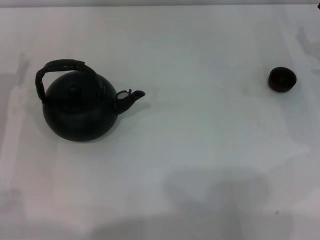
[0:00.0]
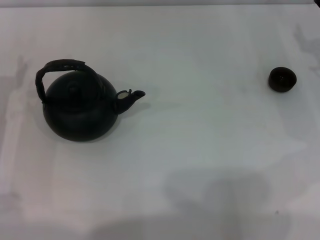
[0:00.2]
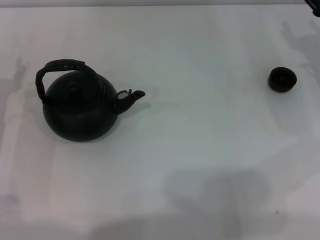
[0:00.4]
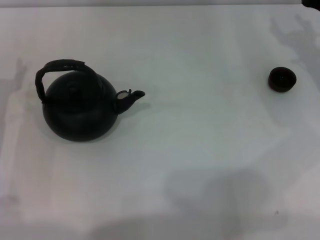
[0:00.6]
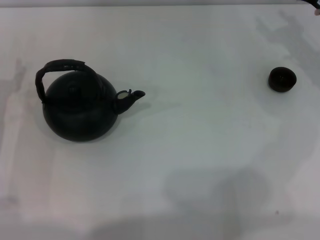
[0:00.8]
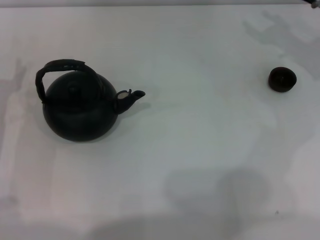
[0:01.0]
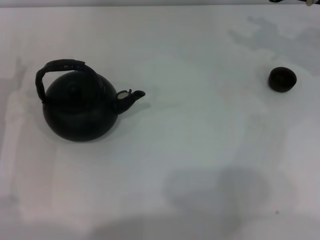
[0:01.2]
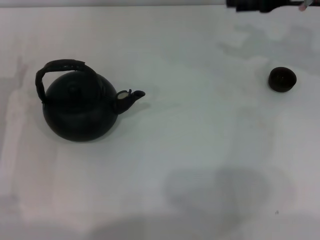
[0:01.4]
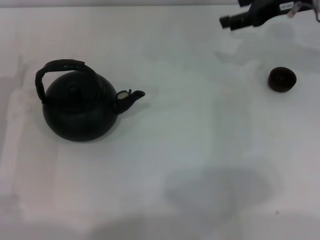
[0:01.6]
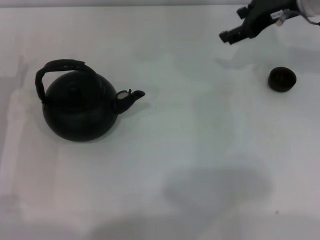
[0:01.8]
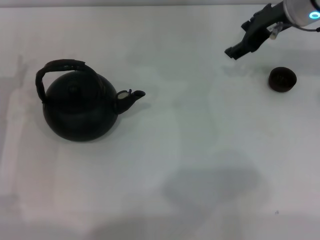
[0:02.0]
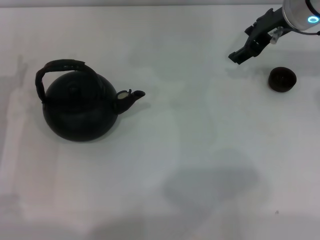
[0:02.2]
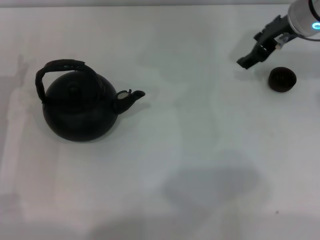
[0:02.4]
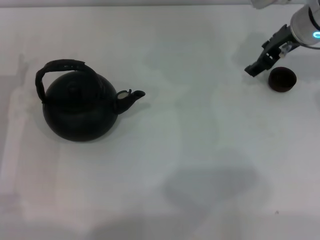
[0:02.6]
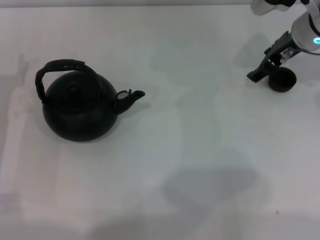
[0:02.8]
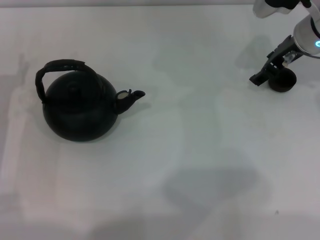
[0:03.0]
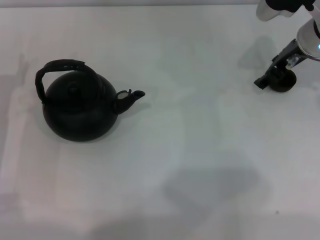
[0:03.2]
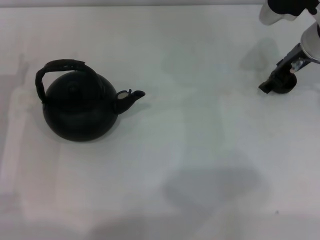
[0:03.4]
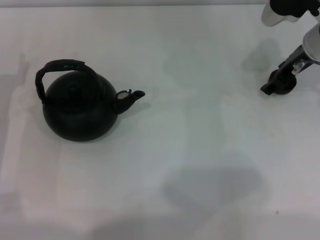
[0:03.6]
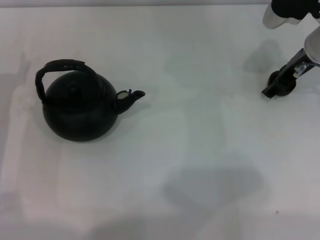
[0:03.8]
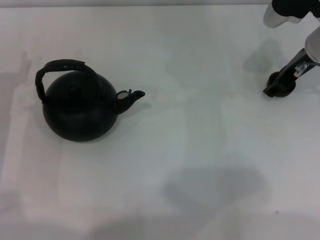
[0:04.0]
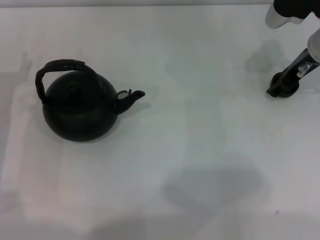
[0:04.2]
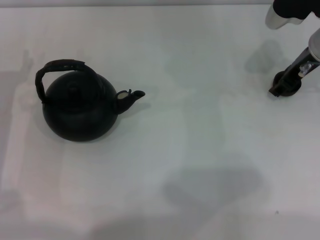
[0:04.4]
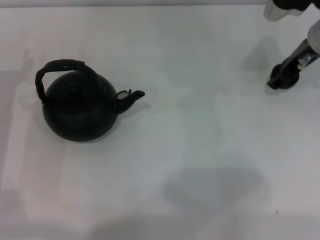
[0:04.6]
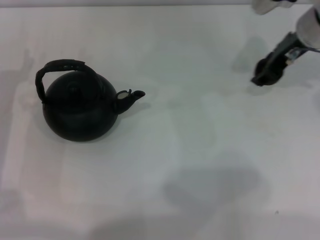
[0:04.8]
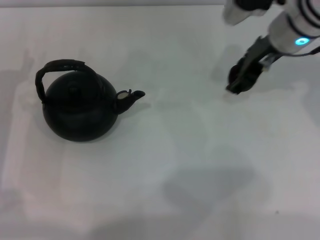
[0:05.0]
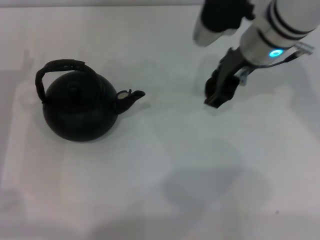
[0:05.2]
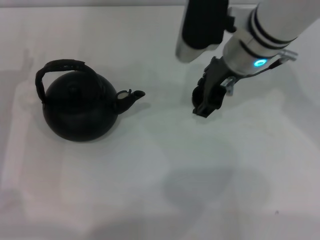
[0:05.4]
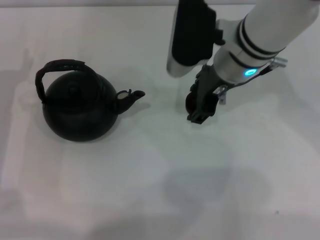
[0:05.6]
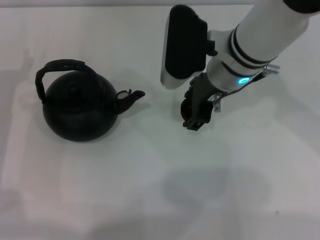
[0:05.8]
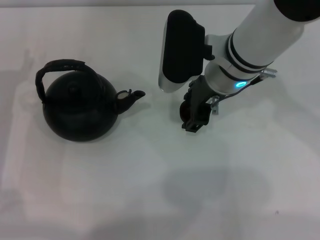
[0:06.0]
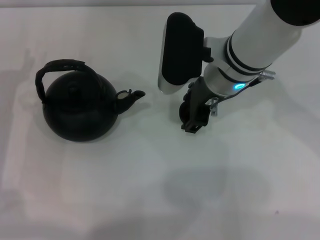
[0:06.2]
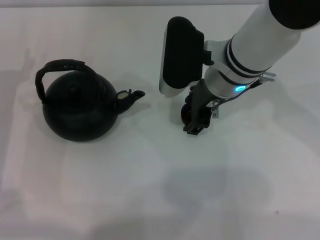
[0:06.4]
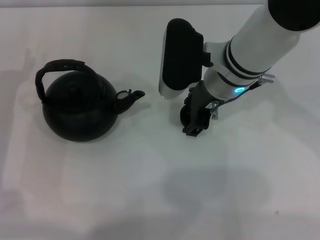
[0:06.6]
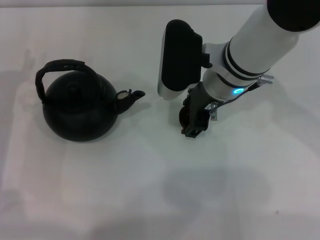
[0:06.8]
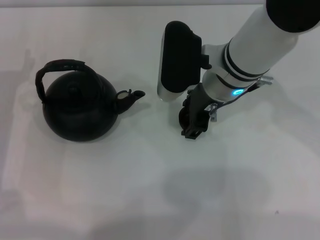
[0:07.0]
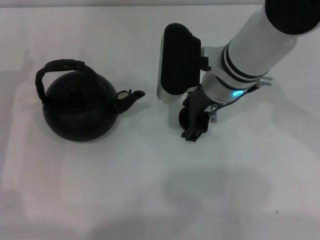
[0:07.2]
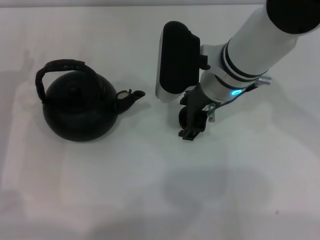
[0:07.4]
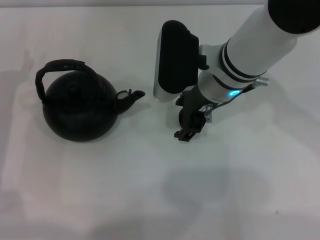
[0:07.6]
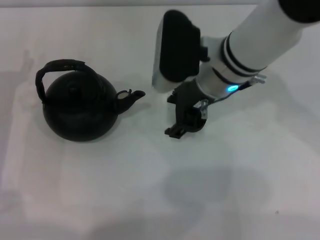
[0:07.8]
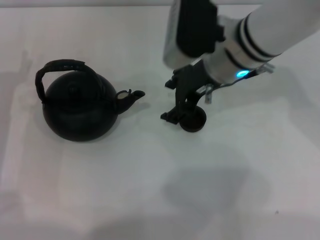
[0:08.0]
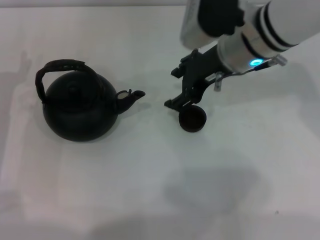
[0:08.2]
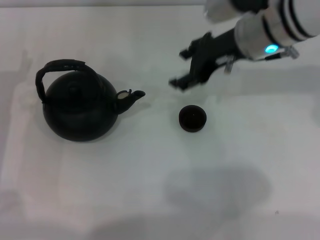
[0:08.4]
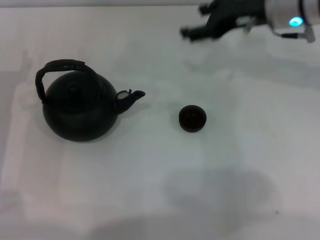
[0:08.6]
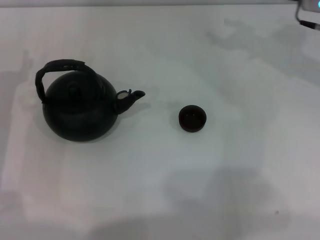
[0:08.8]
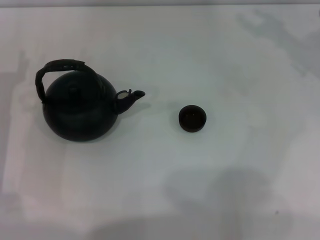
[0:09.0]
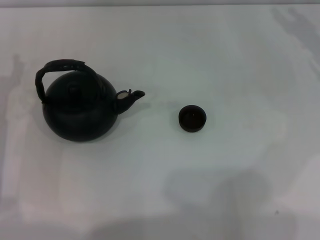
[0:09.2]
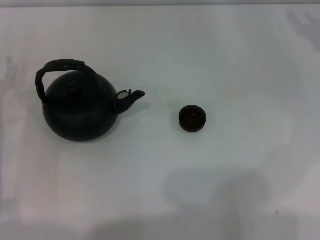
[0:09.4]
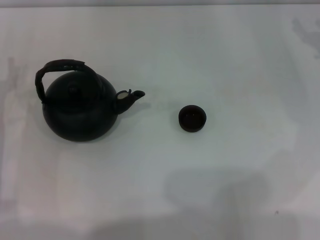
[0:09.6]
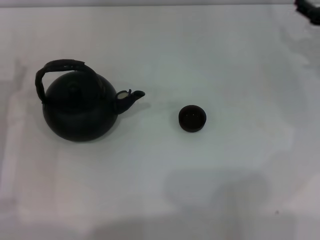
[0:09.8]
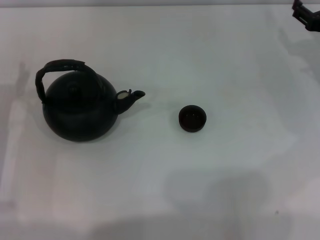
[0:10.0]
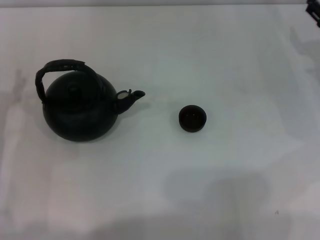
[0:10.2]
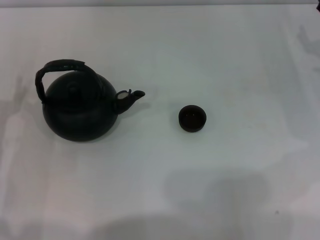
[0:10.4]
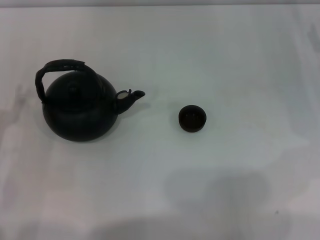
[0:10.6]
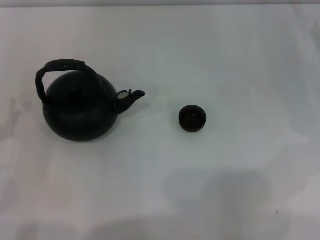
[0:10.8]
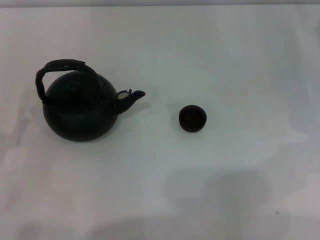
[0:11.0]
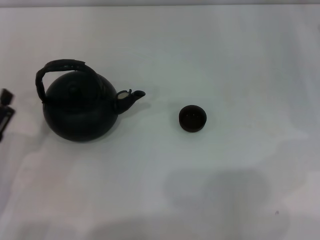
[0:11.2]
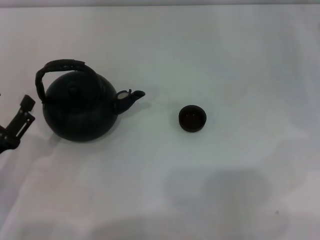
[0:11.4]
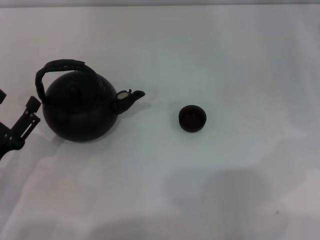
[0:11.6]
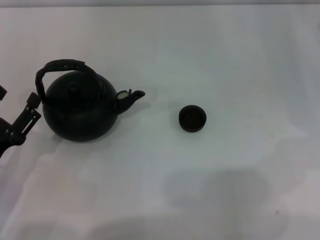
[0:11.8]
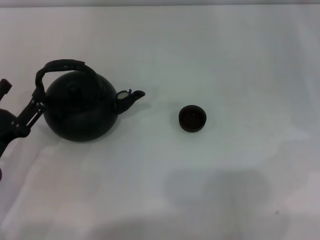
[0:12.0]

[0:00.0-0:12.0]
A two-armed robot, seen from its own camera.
Task of the whole recording: Grasp the handle of the teapot with one hand and pour tea into the teacup.
Step, 0:00.0 to 0:05.0: Pick up the teacup with the right gripper.
Step, 0:05.2 to 0:07.8: Place the teacup in the center of view with the right gripper.
0:00.0 to 0:01.6: The right gripper is displaced upward, to the left and forward by roughly 15 cm.
0:01.6 to 0:03.0: The right gripper moves about 5 cm.
0:03.0 to 0:04.4: The grippers move only a little.
0:04.4 to 0:06.0: The right gripper is displaced to the left by about 15 cm.
0:06.0 to 0:07.6: The two grippers keep their place.
0:07.6 to 0:09.0: The right gripper travels to the right by roughly 20 cm.

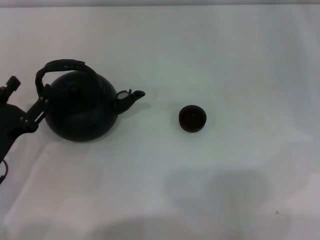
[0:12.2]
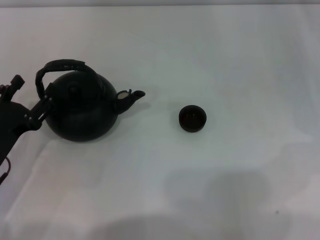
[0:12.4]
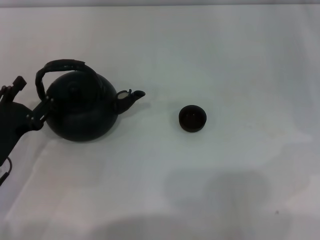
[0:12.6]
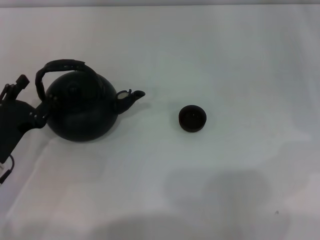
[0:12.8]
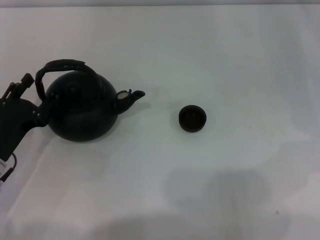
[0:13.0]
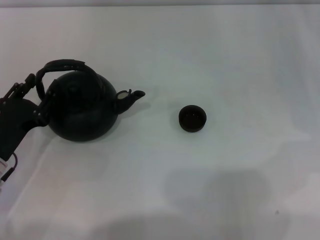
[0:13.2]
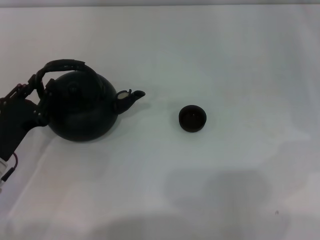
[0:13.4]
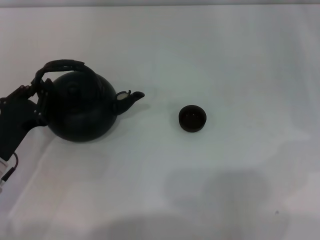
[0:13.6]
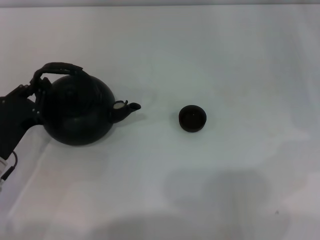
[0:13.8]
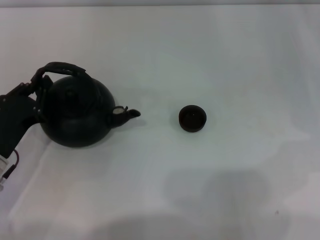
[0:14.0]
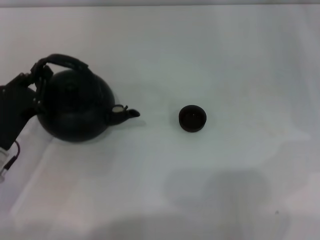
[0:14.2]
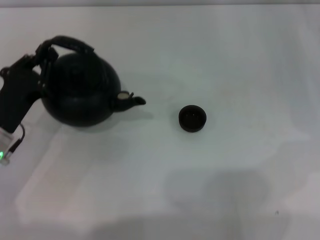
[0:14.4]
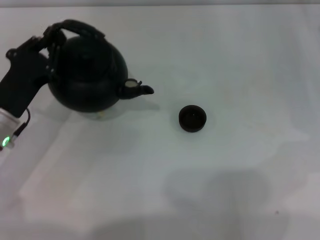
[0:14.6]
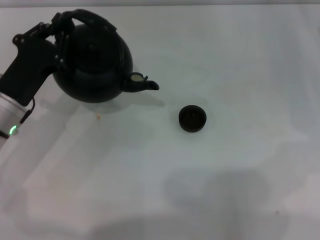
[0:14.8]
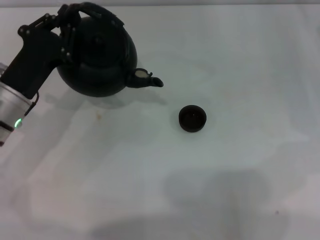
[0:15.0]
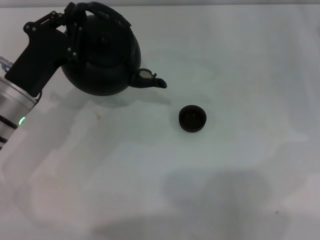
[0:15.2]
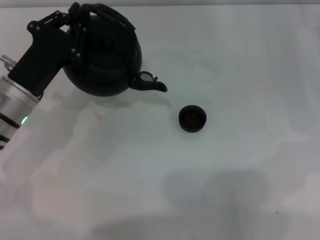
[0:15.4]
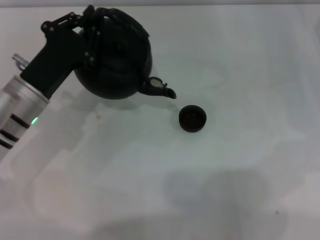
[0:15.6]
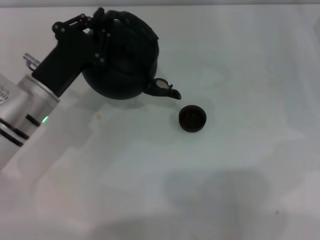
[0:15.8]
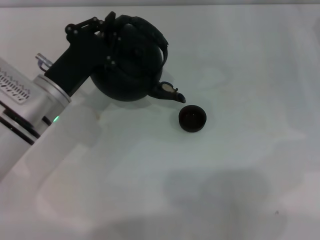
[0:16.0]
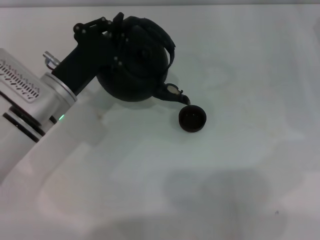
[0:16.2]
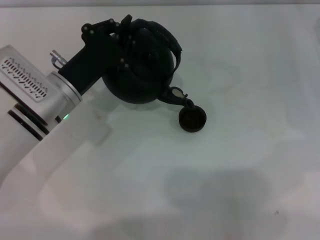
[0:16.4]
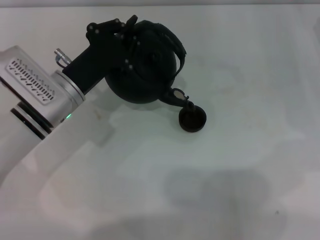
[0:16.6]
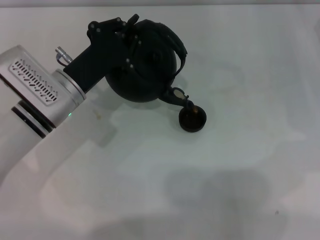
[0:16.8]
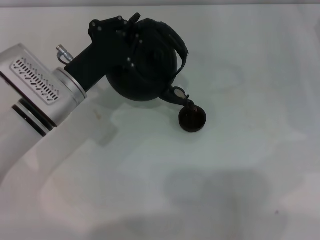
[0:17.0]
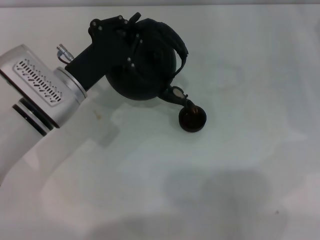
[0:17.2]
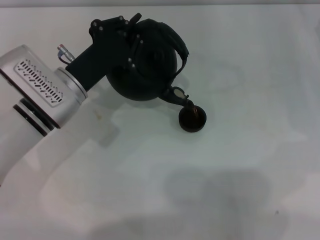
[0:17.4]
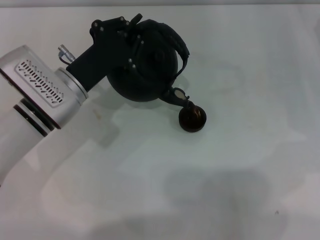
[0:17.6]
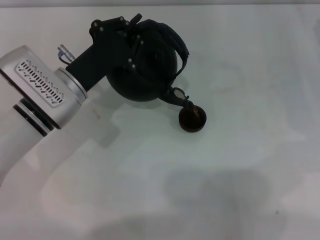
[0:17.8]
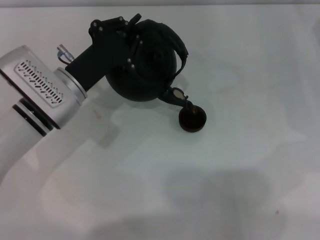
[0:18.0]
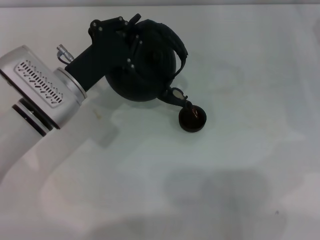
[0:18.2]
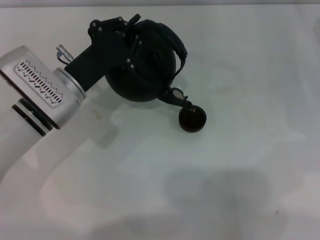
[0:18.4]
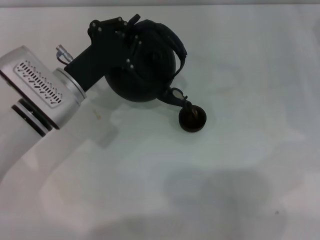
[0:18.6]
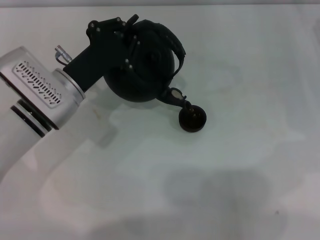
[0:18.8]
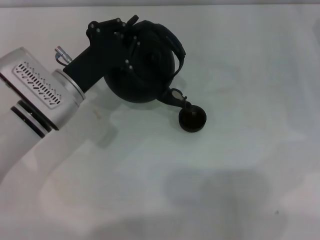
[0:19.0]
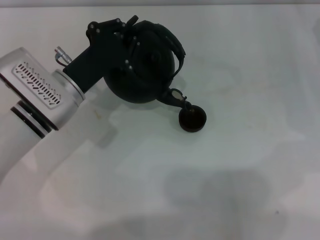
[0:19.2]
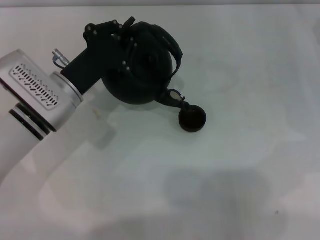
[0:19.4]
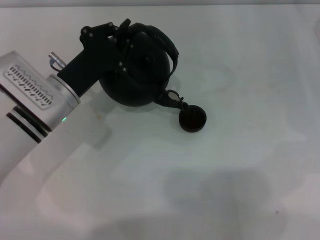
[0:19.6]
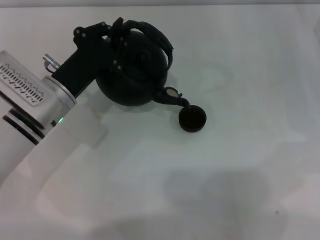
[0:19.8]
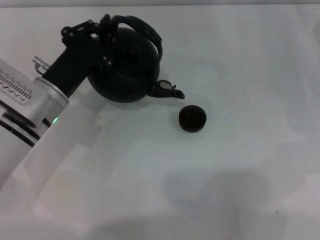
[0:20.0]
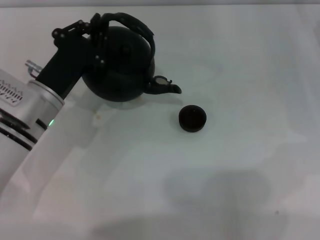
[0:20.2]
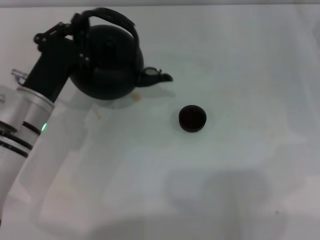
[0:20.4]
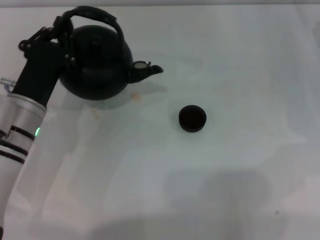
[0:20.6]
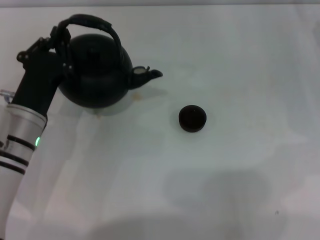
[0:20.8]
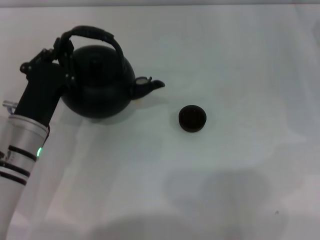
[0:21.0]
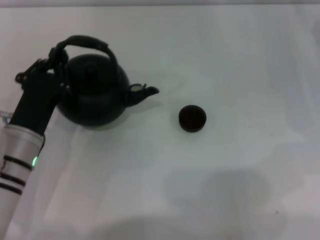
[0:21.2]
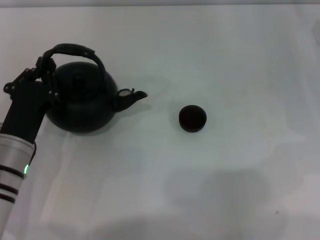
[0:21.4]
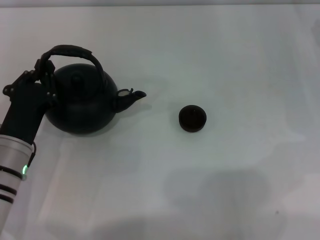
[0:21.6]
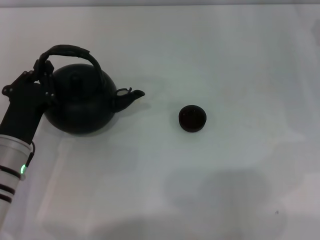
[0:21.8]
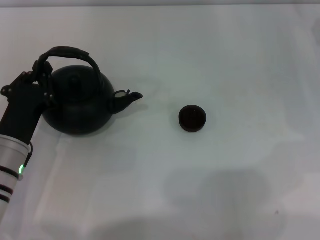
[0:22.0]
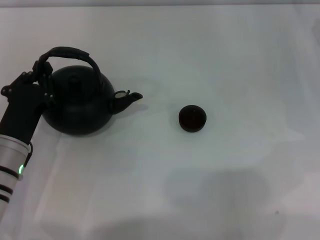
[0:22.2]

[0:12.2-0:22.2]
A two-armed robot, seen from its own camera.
Task of the whole recording: Grasp the handle of the teapot with one hand and pour tea into the teacup.
Step, 0:12.2 to 0:15.0: Pick up the teapot with the left gripper.
Step, 0:15.2 to 0:19.8: Pour tea into the teacup with the left gripper.
0:12.2 to 0:13.6: The left gripper closes up.
0:13.6 to 0:15.0: The left gripper heads forward, covering approximately 5 cm, and closes.
0:15.0 to 0:16.4: The left gripper moves to the right, about 5 cm.
0:16.4 to 0:18.0: The grippers stay close to where they were, moving slightly.
0:18.0 to 0:19.4: Both grippers stay about where they are.
0:19.4 to 0:20.8: The left gripper changes place by approximately 5 cm.
0:20.8 to 0:22.2: The grippers move only a little.
